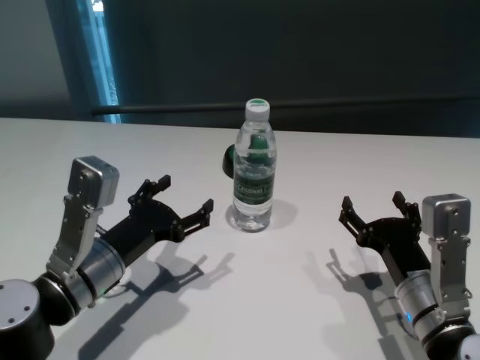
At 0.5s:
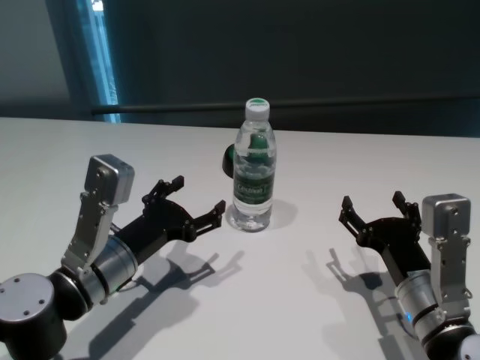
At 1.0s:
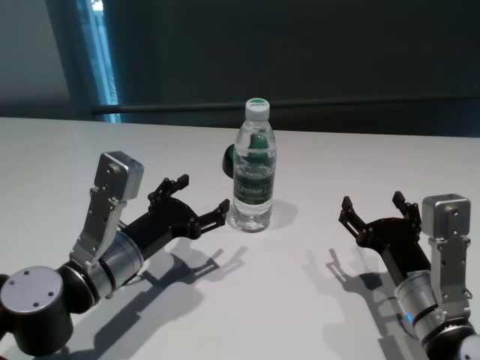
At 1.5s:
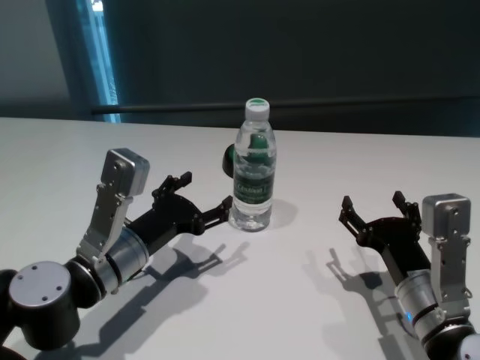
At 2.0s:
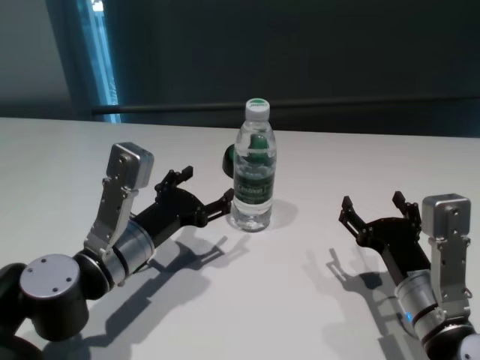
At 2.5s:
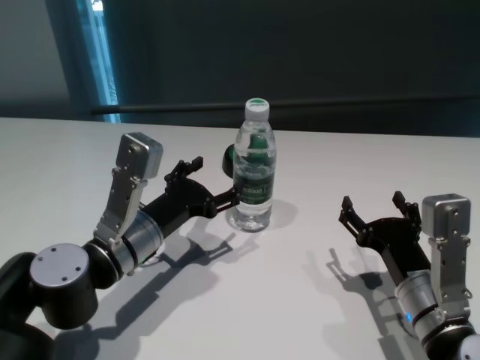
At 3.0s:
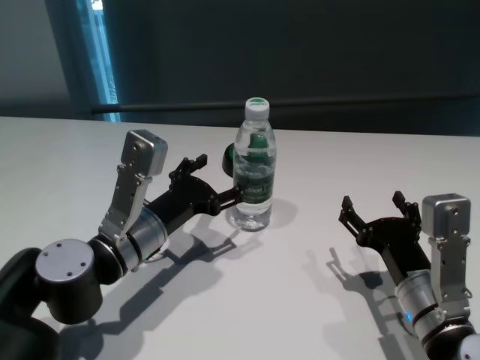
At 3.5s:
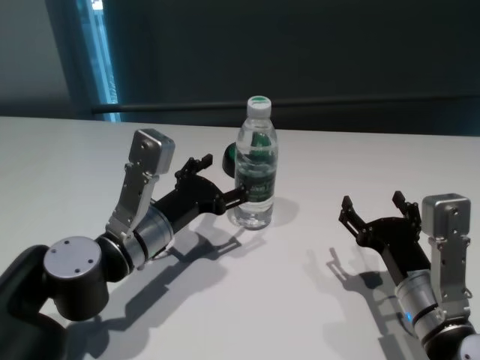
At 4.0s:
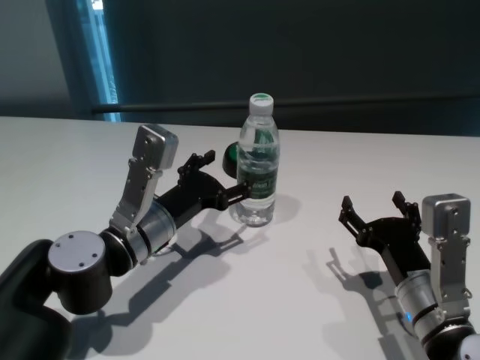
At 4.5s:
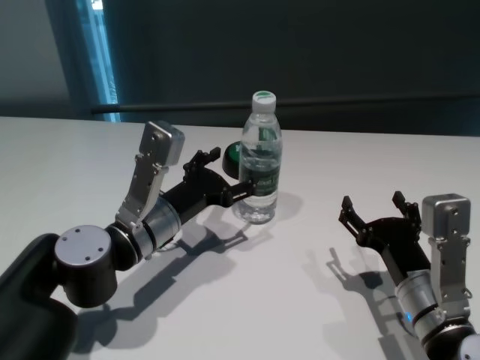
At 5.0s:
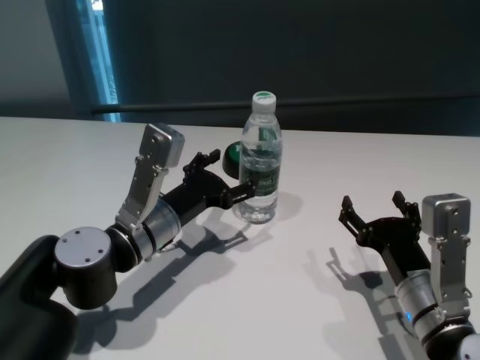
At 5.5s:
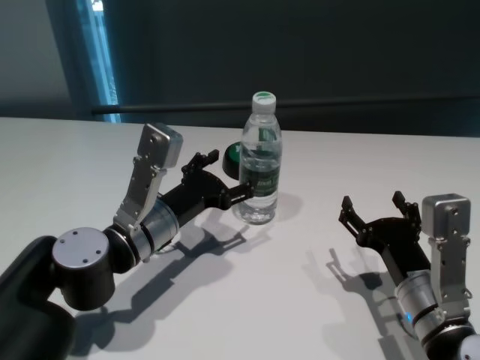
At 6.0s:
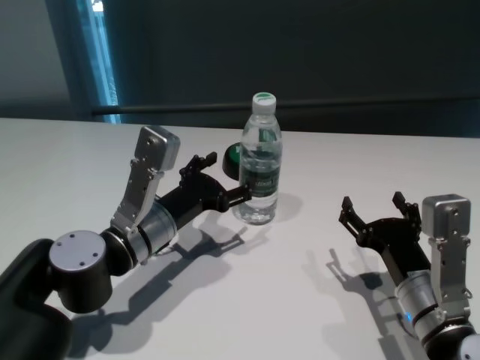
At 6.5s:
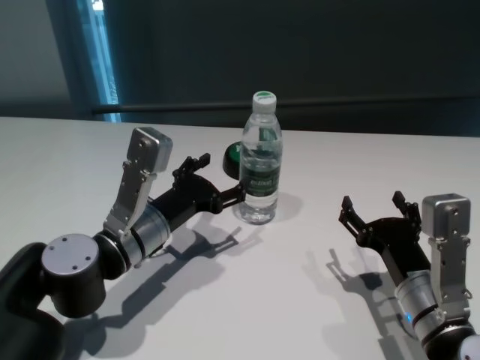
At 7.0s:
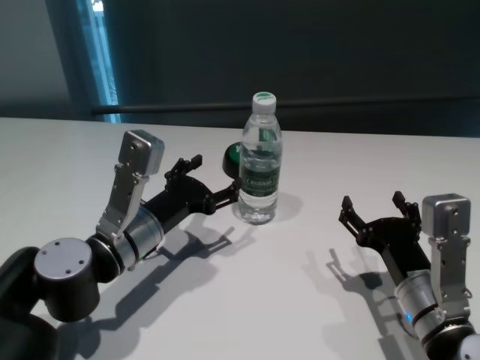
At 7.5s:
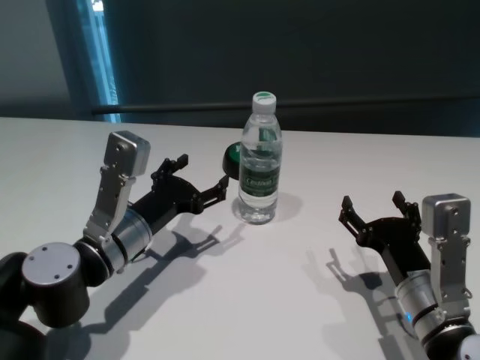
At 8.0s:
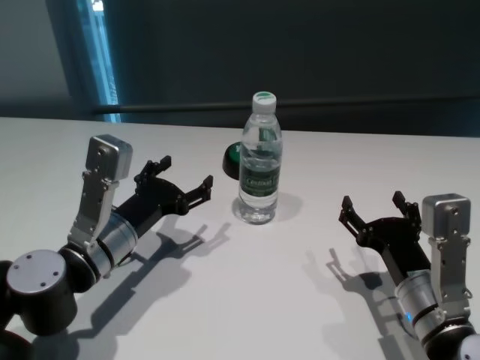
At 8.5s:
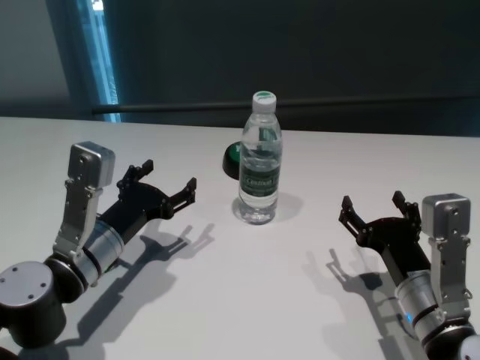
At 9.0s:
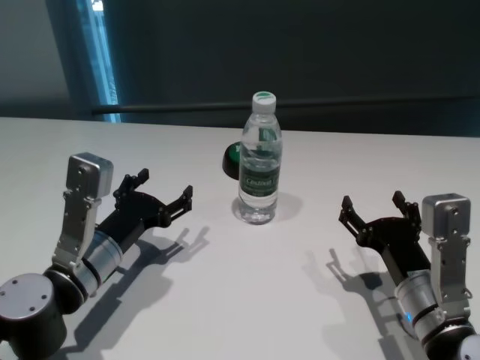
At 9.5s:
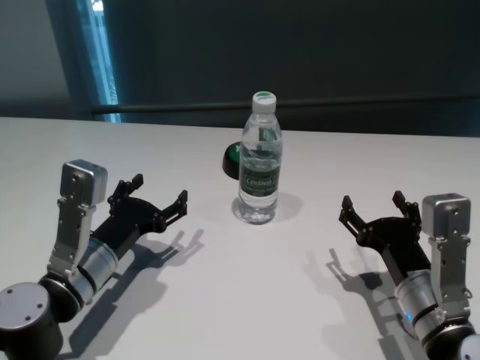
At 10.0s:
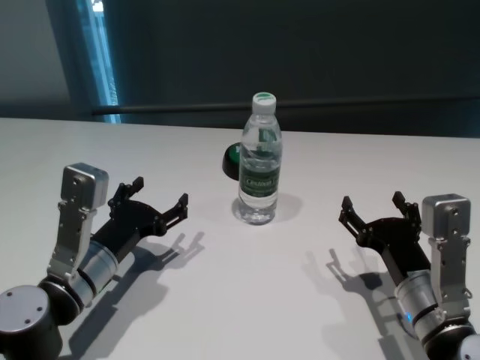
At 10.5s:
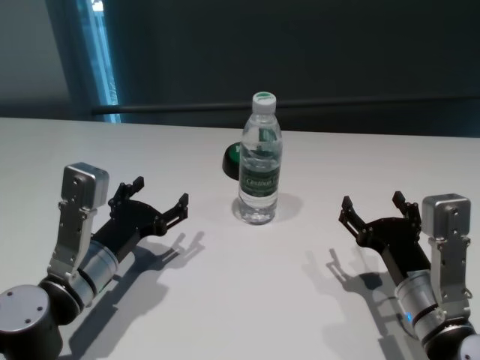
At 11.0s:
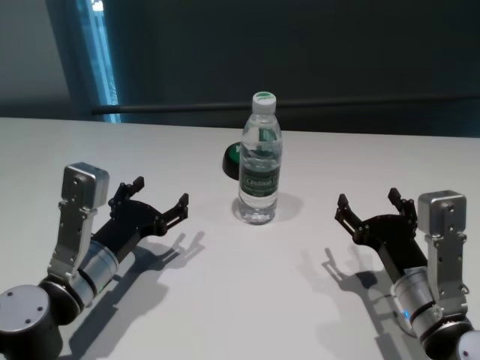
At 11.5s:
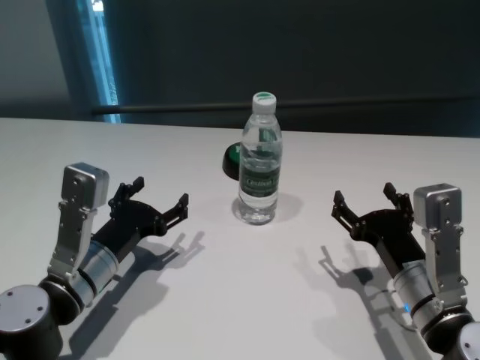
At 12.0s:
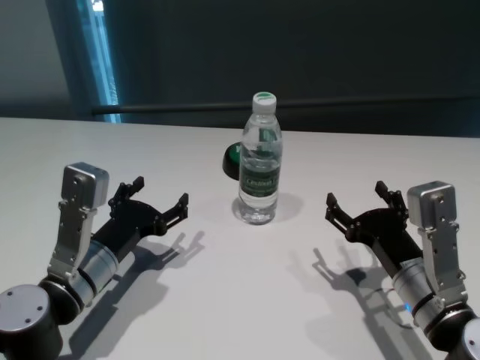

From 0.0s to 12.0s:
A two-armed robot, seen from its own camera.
Task of the whole recording: return to a safe position after touching an obstacle with your arm on the white table.
Step, from 0.0s to 7.5s: Touch the bottle with left gripper.

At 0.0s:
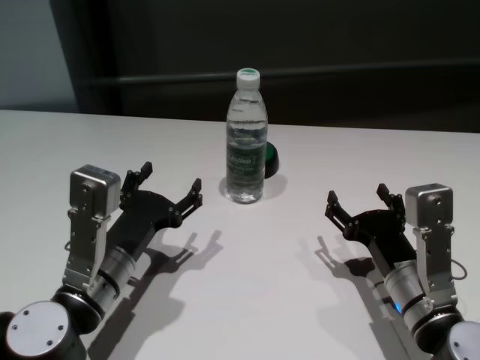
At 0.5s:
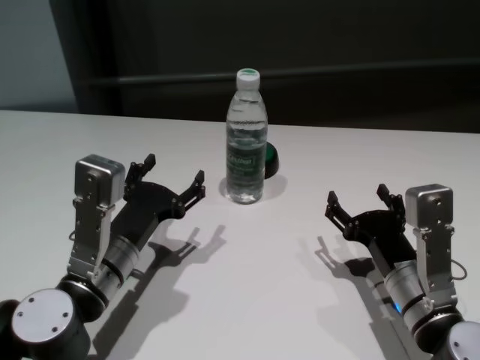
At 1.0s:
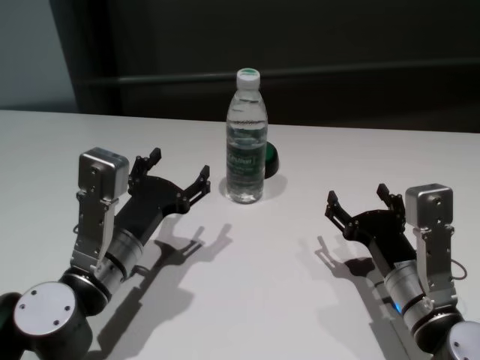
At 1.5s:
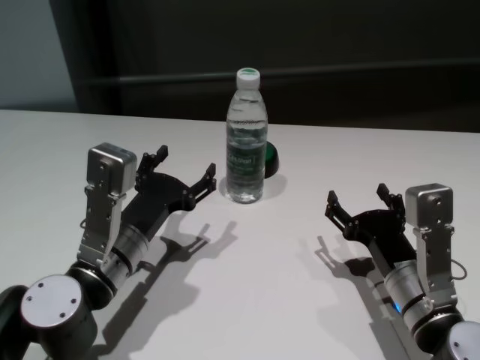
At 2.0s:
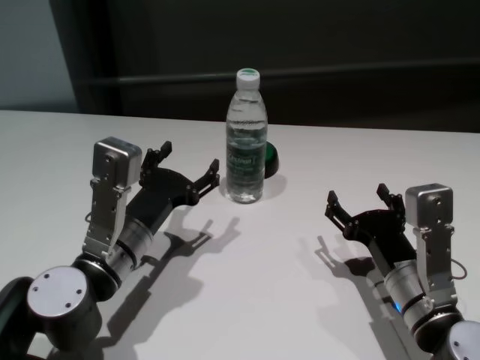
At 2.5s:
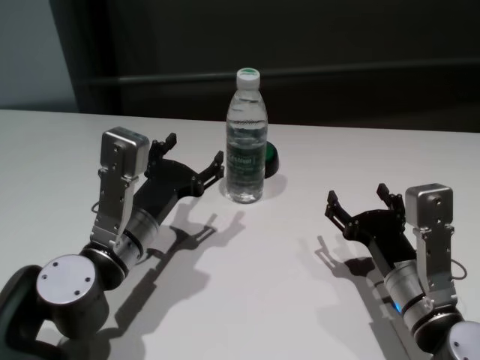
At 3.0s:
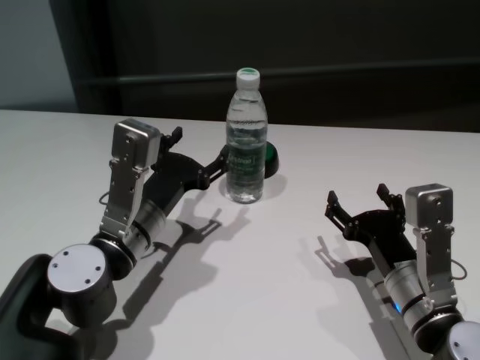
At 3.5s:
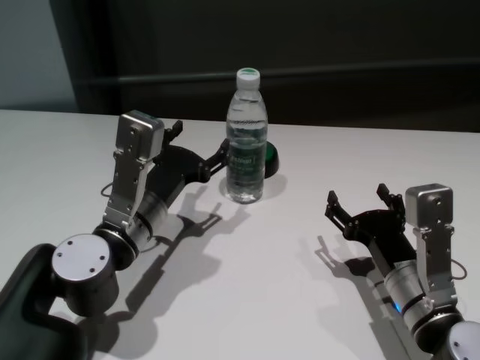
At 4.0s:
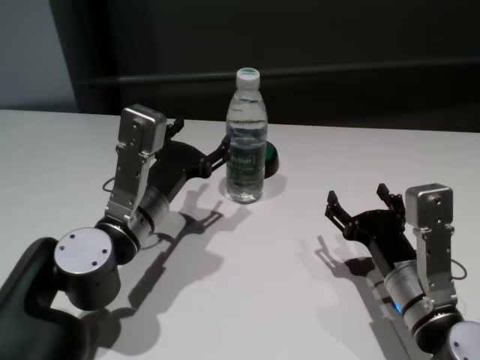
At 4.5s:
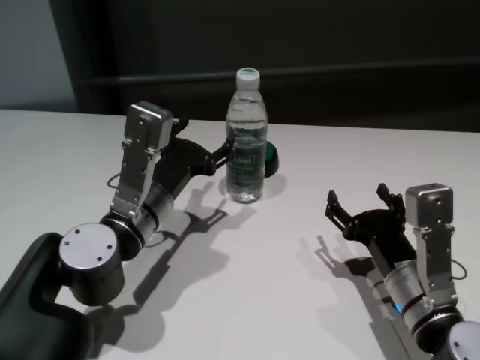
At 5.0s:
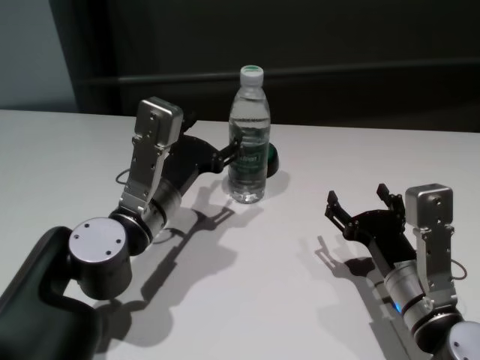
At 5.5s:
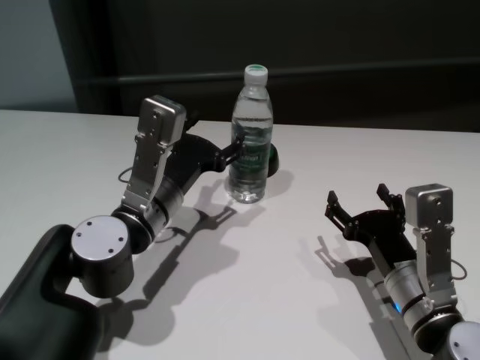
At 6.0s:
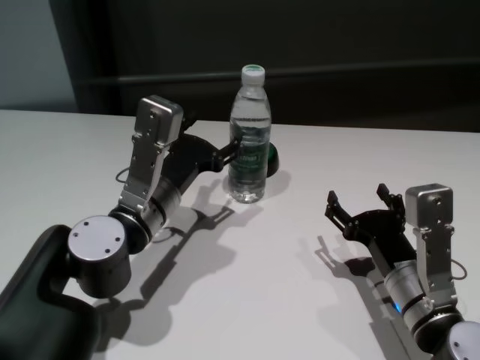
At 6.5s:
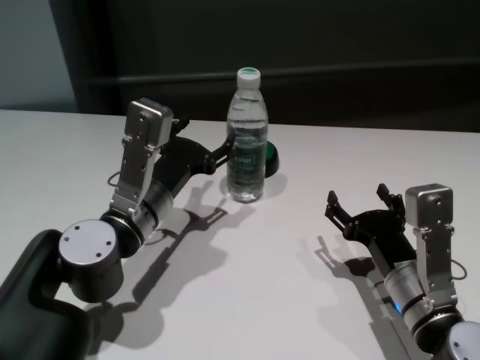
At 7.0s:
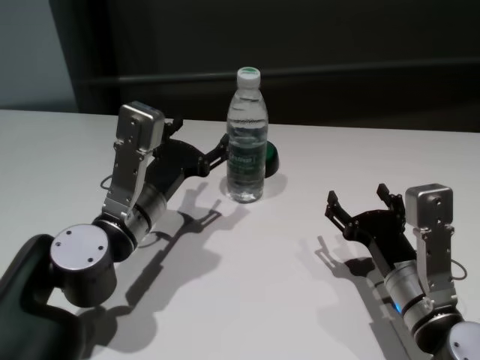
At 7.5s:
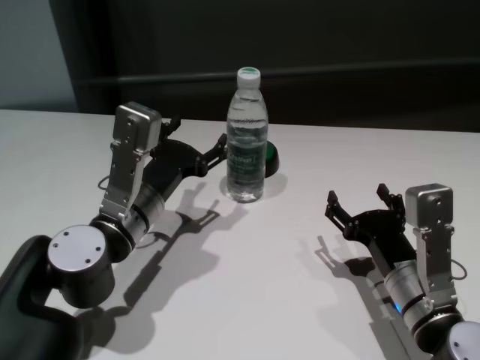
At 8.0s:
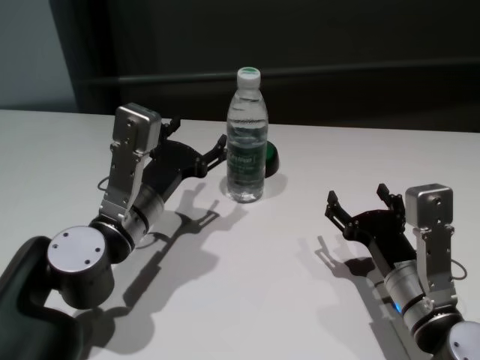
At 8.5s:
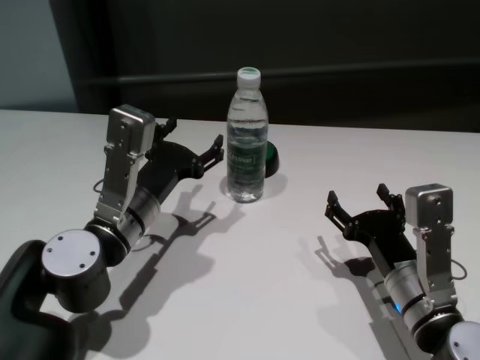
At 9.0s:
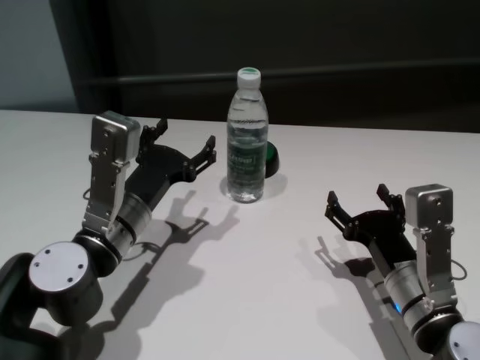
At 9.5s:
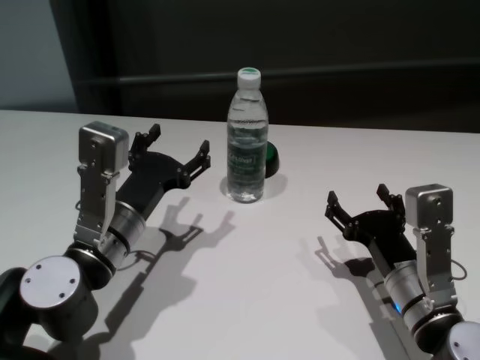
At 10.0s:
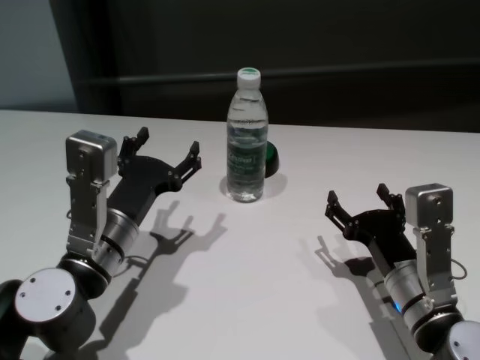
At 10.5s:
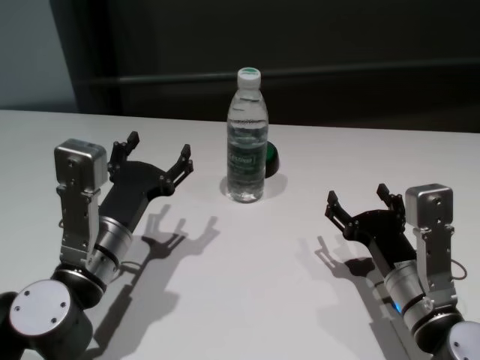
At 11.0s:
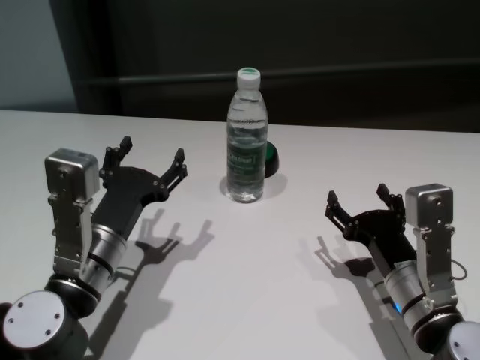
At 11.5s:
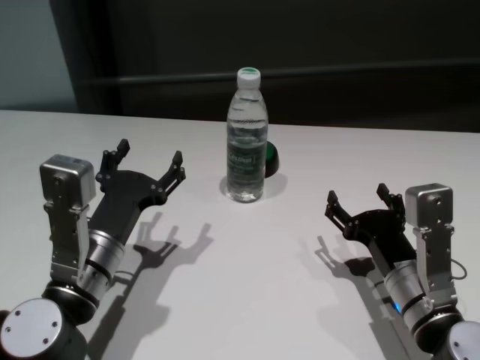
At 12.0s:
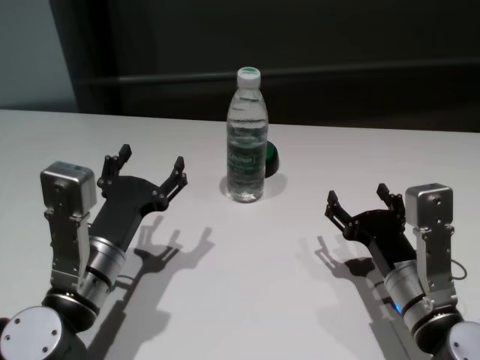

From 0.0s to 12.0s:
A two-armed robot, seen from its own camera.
Task of the whole recording: return to a safe position after touching an obstacle with your arm on the white table.
Step, from 0.0s to 8.0s: Touch the bottle with left gripper.

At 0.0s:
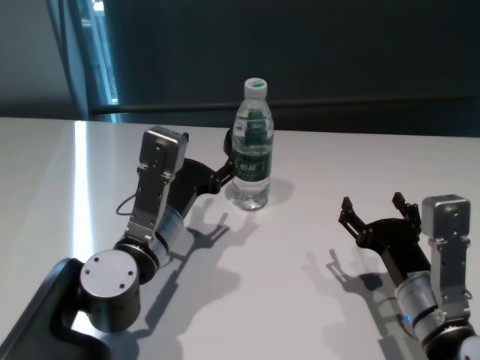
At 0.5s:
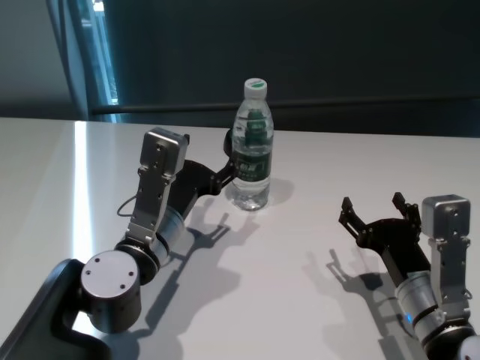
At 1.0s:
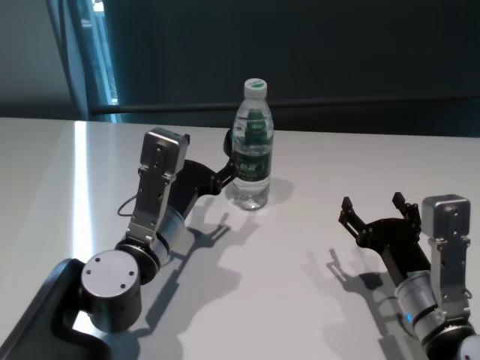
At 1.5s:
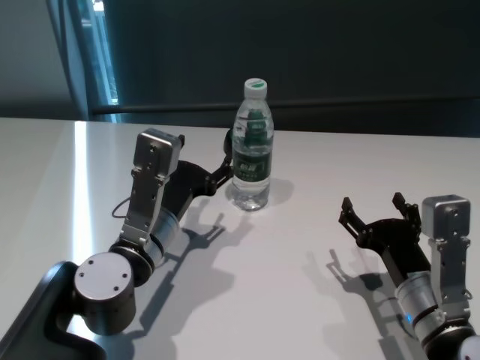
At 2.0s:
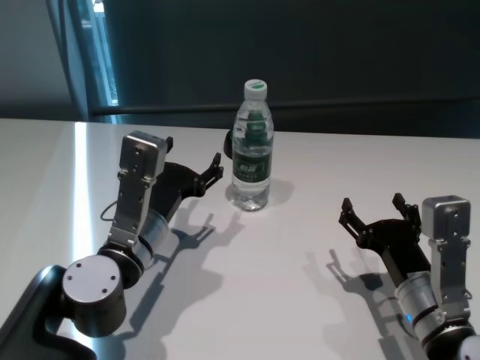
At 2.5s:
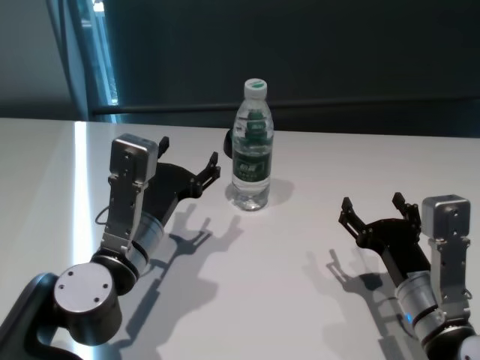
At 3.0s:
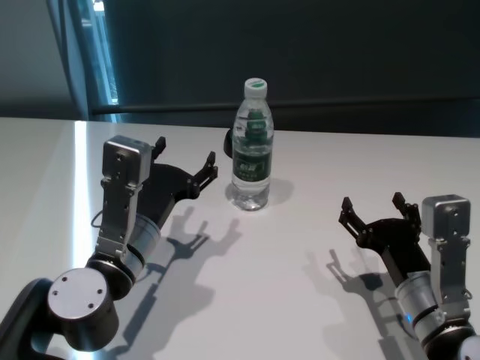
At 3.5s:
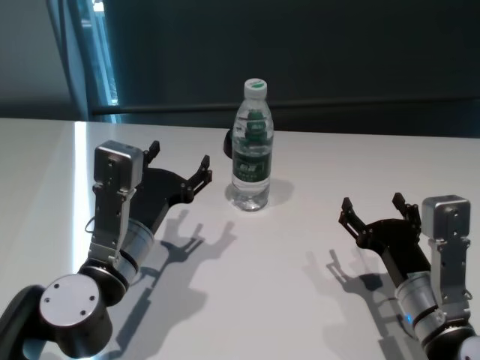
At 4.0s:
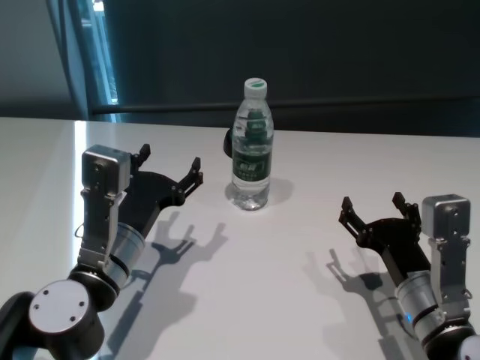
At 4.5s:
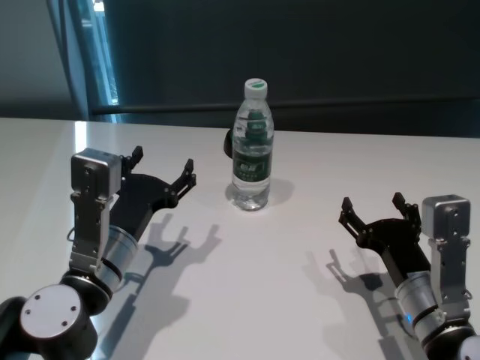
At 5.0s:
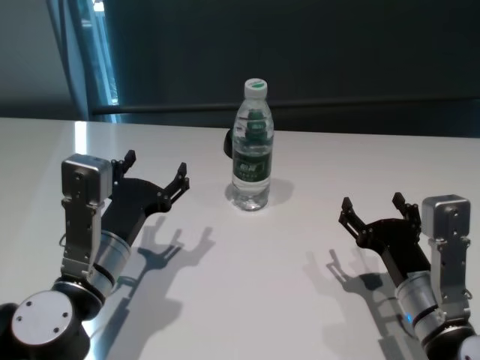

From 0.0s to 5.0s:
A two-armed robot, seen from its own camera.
Task of the whole recording: return to a safe position after touching an obstacle with your arm on the white table.
Step, from 0.0s to 2.0s: Touch the bottle with left gripper.
